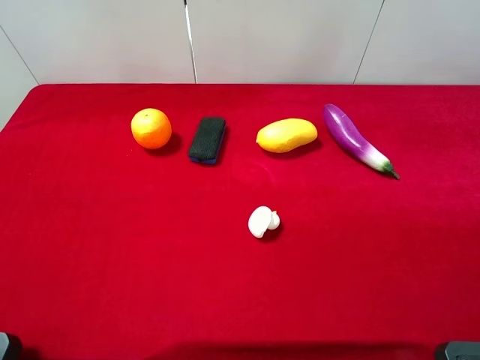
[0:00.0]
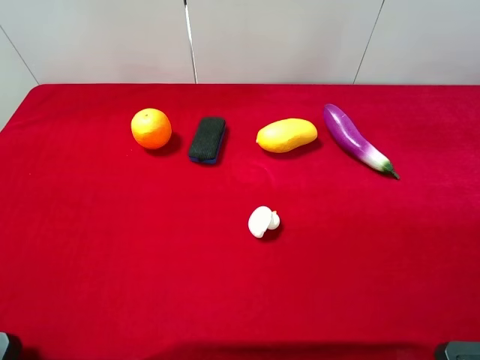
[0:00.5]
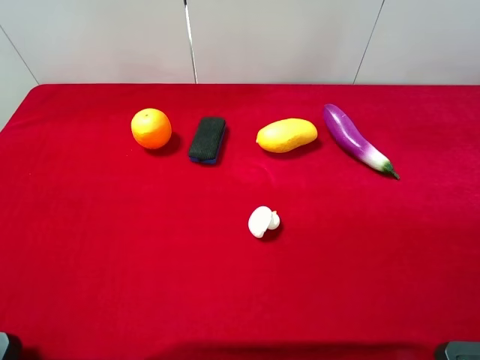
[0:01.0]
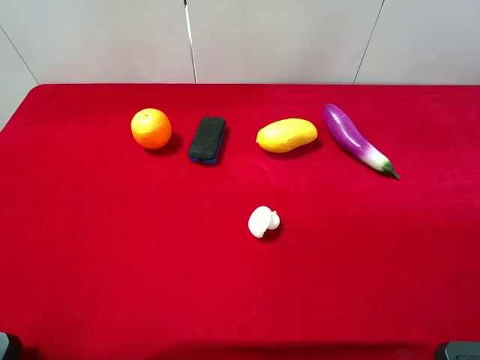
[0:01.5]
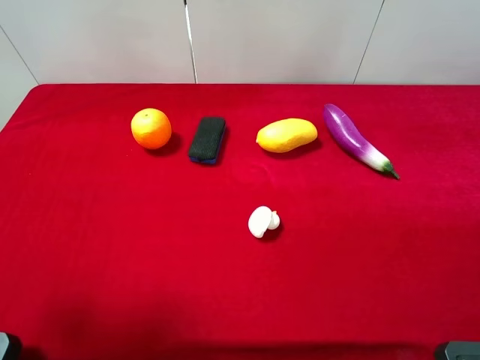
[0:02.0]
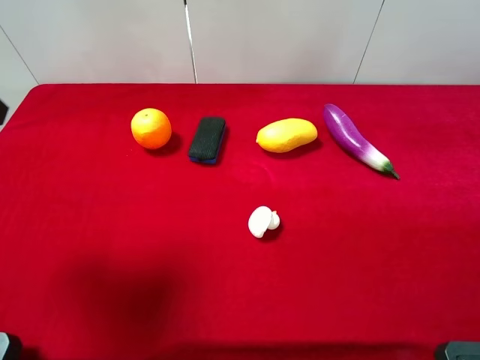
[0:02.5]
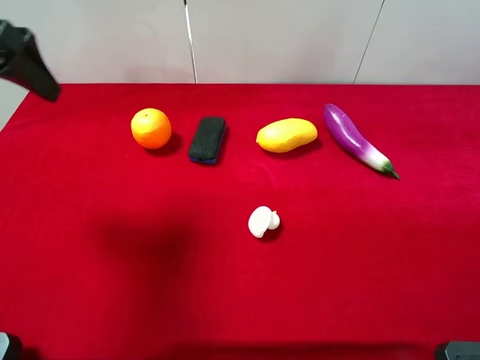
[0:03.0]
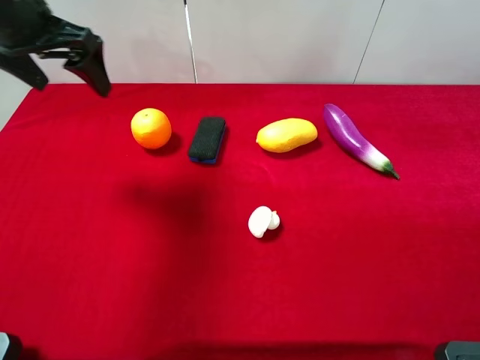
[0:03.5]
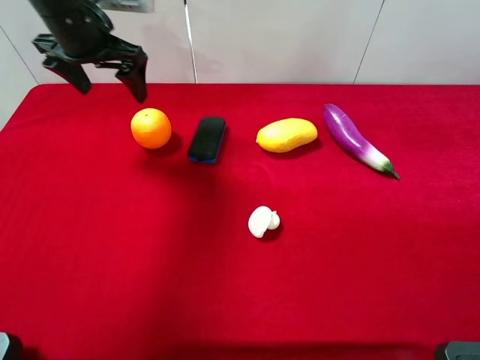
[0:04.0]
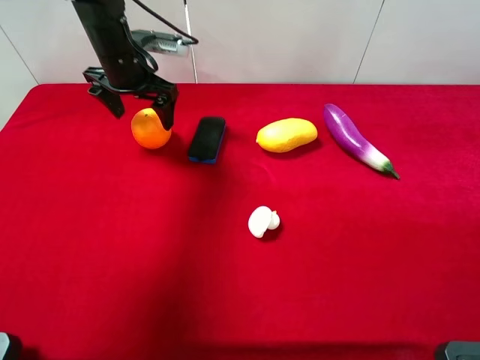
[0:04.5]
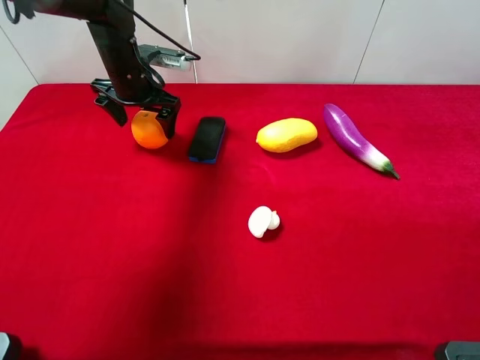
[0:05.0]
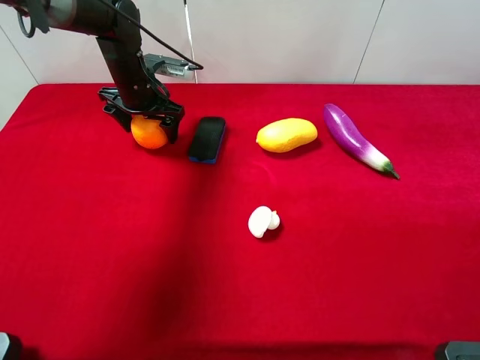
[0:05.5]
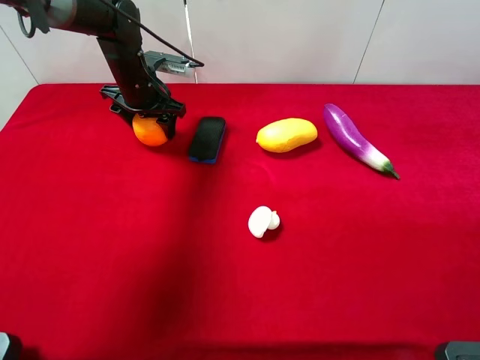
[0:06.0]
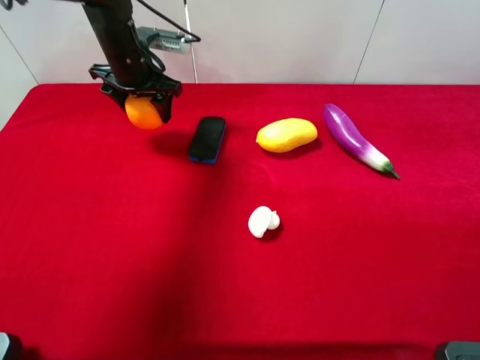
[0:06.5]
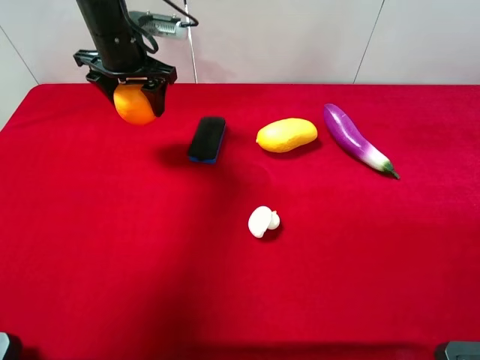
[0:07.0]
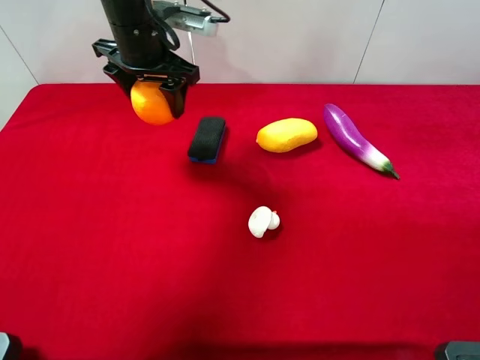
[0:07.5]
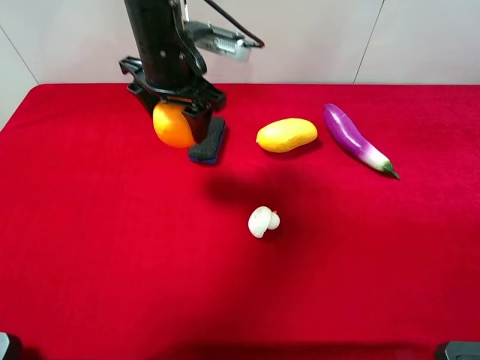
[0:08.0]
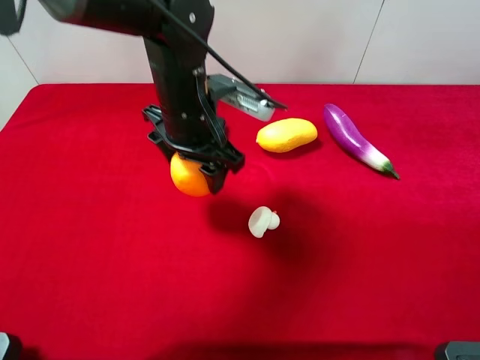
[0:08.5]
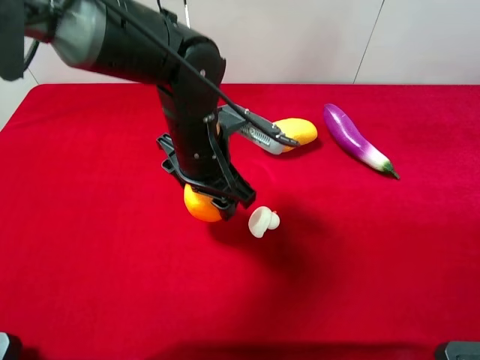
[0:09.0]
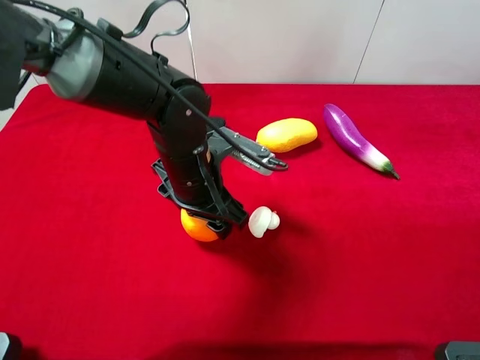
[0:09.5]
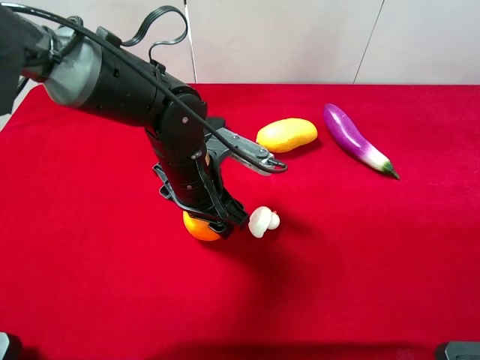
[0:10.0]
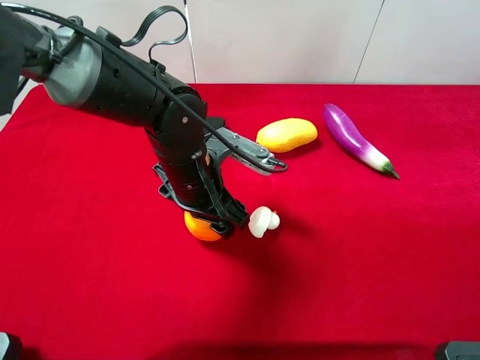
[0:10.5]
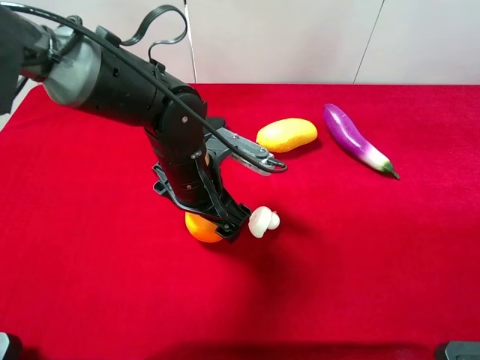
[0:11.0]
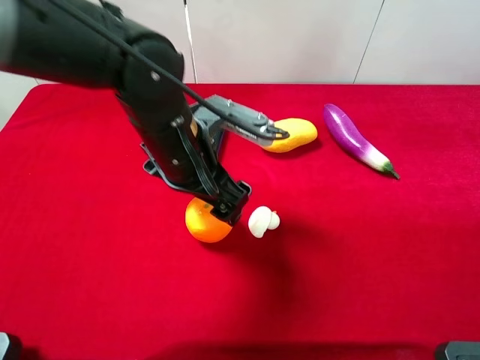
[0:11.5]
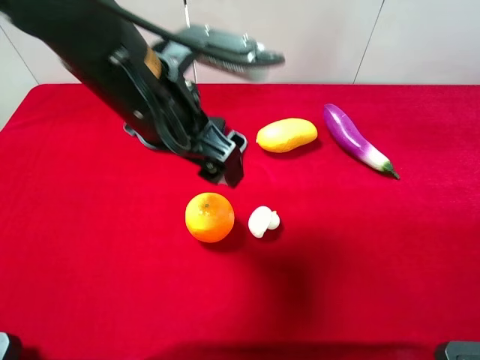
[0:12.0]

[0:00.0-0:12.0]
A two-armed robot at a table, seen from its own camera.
Task of the whole recording: the gripper move the object.
Step, 0:00.0 to 0:05.5: Grasp the orange with the left gripper.
Step, 0:06.0 to 0:11.5: Place the orange on the table with the left gripper.
0:00.0 to 0:02.0: The left gripper moves forward and upward, about 10 cm.
0:02.0 to 0:04.0: The left gripper travels forward by approximately 30 cm.
0:04.0 to 0:06.0: The left gripper shifts about 10 cm downward, and closes its fingers.
0:06.0 to 0:08.0: The left gripper moves backward, upward and to the right, approximately 15 cm.
0:08.0 to 0:10.0: The left gripper travels downward and backward by approximately 15 cm.
0:10.0 to 0:12.0: The left gripper is displaced upward by approximately 15 cm, and opens its fingers.

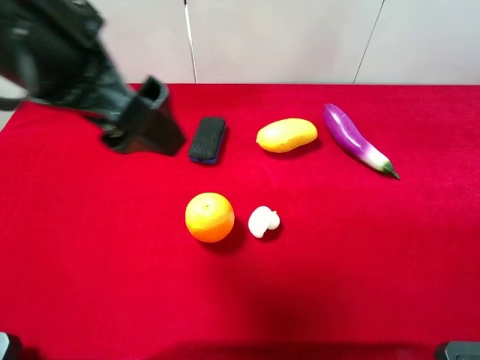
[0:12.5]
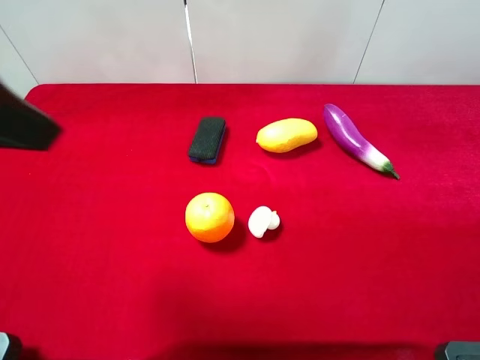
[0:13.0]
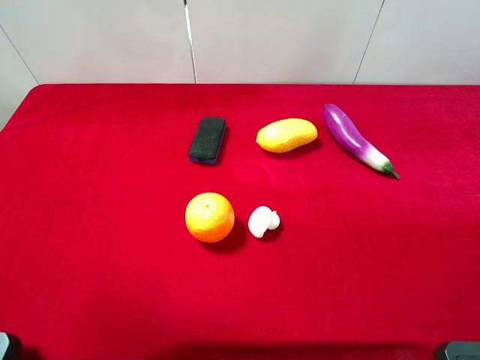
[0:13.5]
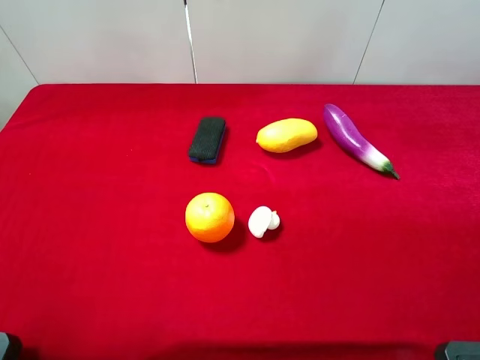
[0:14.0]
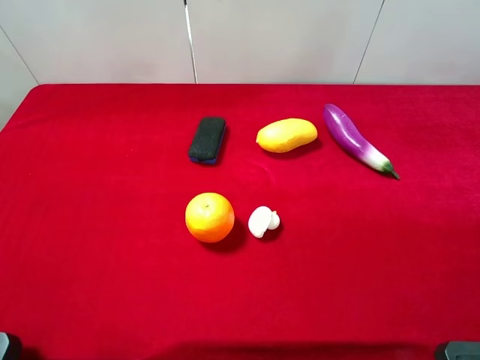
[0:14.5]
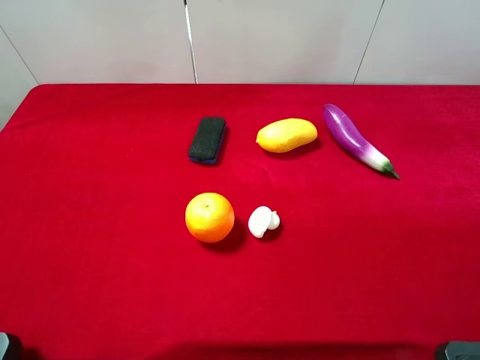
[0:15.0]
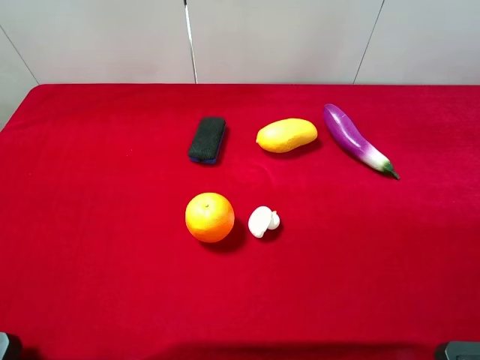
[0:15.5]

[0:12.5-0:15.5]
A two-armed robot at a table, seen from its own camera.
Task of the whole recording: the gripper move the object.
0:12.5 to 0:14.0: The left gripper shifts roughly 20 cm to the left and backward.

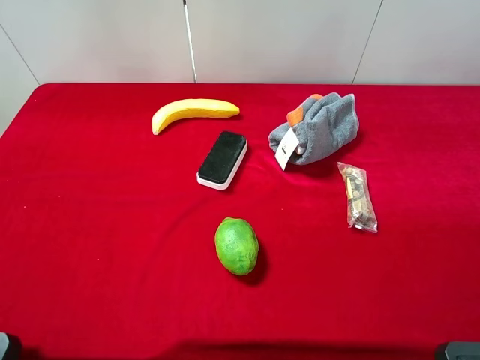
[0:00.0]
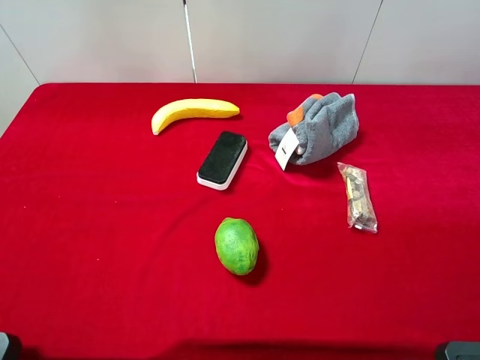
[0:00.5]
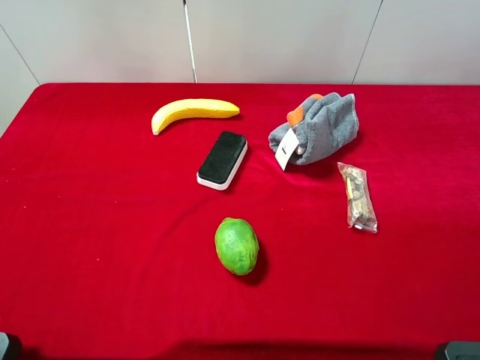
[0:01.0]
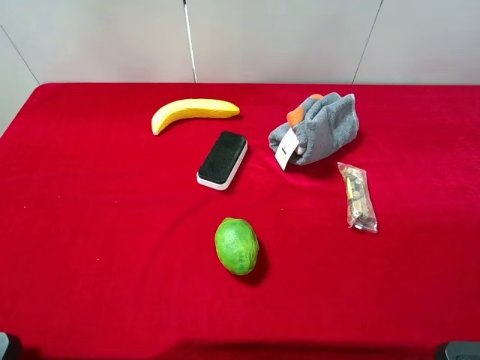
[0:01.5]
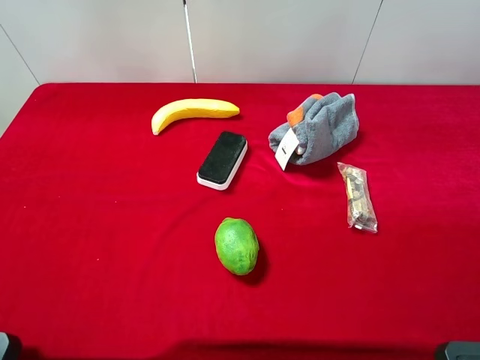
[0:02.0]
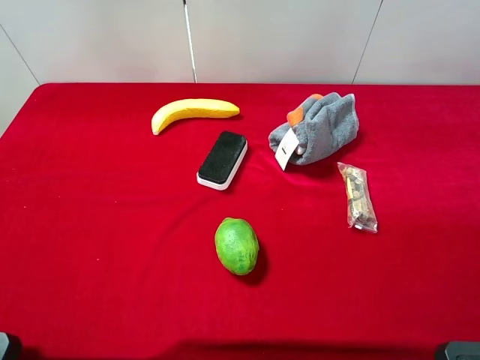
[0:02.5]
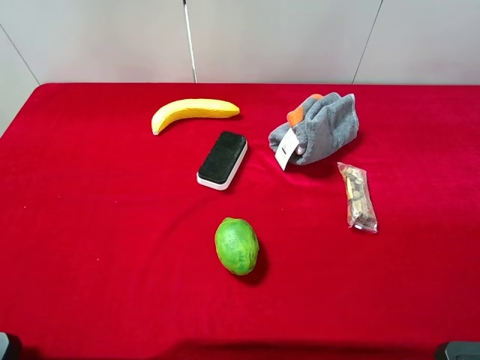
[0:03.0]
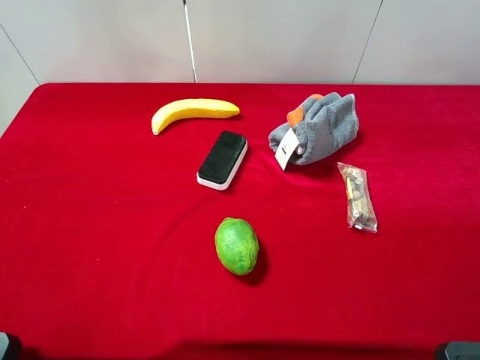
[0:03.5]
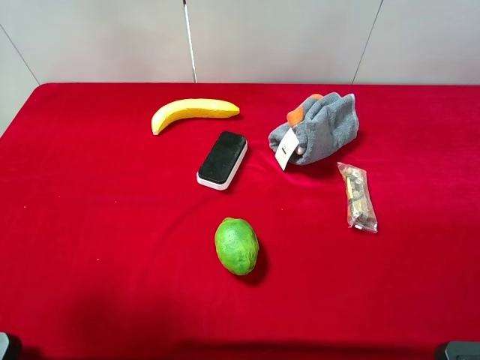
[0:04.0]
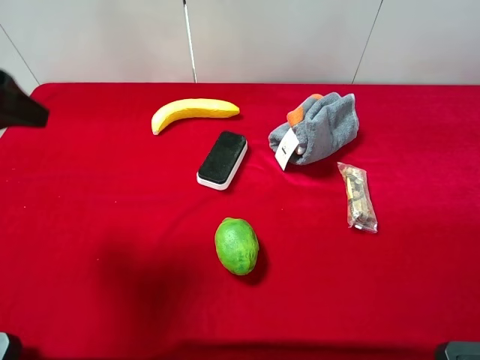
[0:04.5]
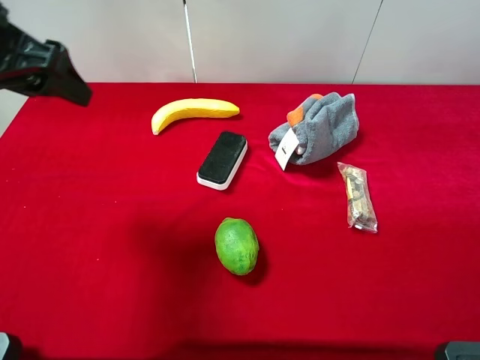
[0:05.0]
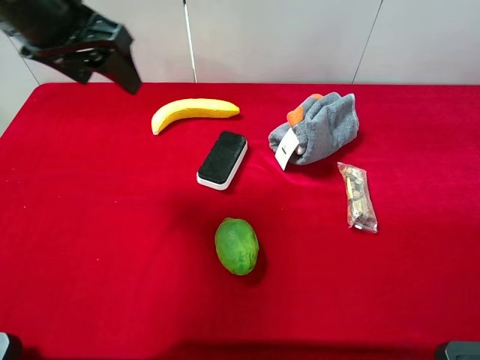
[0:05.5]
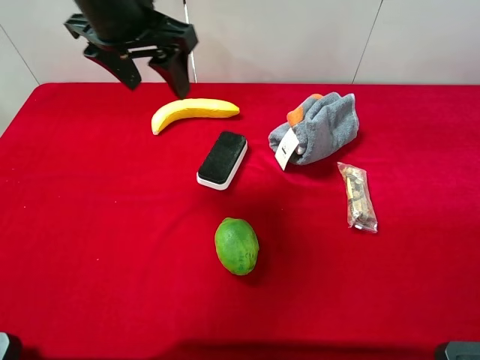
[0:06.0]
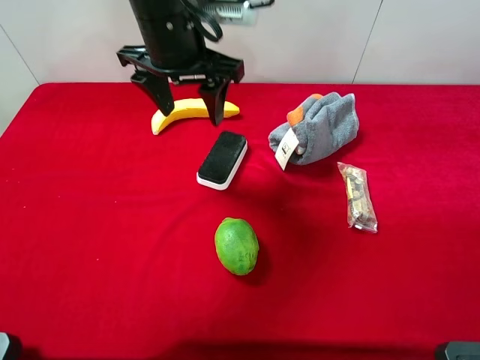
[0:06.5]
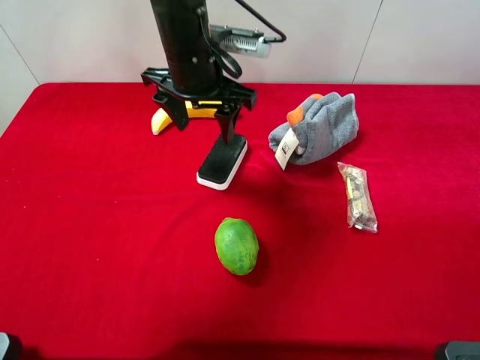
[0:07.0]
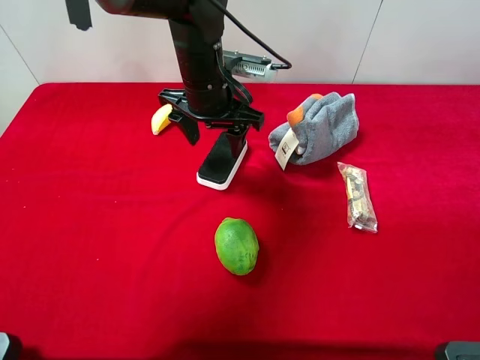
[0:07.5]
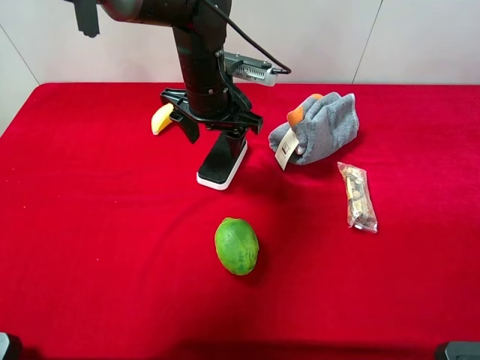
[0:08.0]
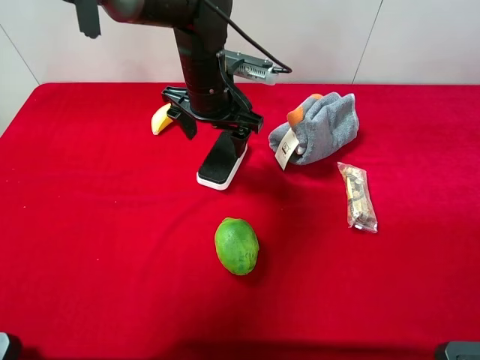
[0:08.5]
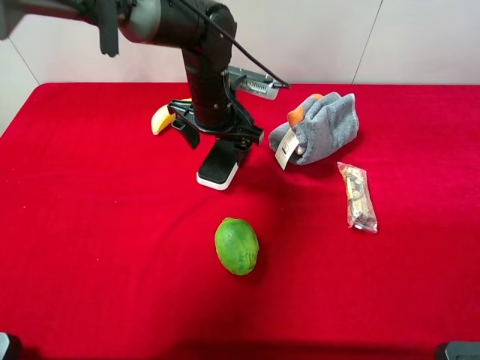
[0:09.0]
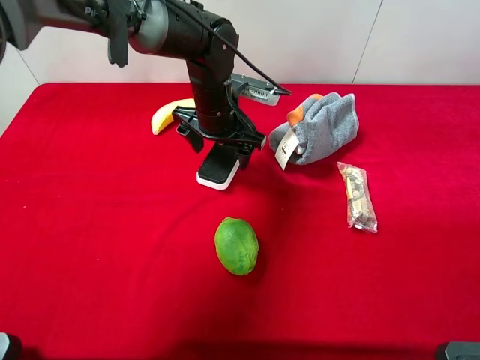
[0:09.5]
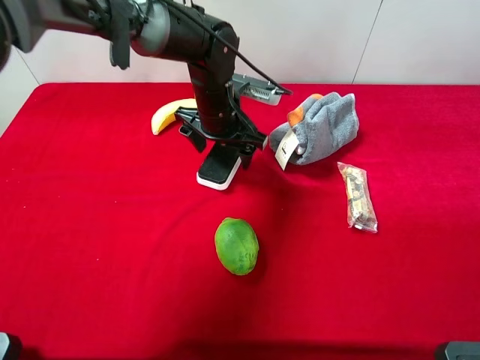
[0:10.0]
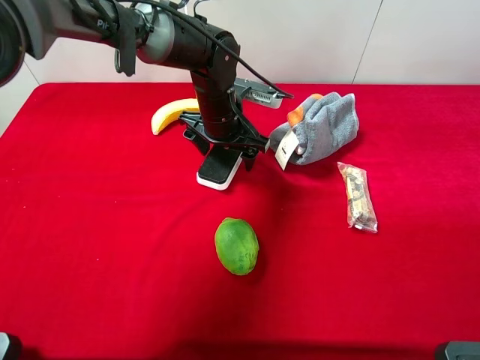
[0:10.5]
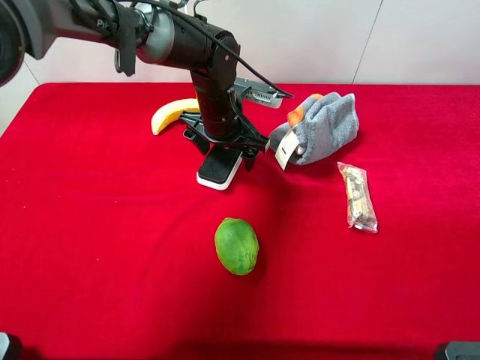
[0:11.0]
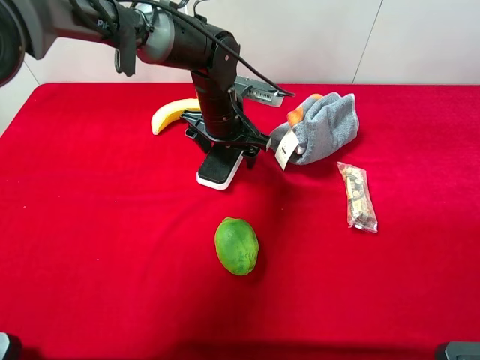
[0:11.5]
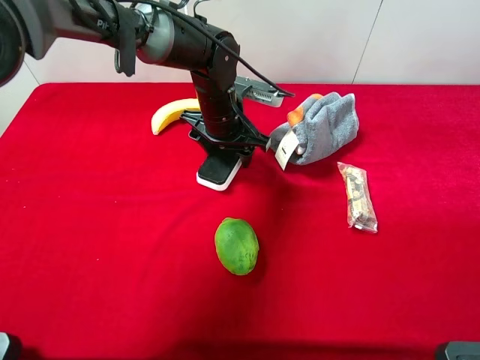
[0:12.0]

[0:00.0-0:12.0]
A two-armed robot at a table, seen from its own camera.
Task of the whole recording: the gripper move the object.
0:00.0 to 0:02.0: Both grippers stay put.
0:02.0 to 0:04.0: The left gripper heads forward, covering some 10 cm.
0:04.0 to 0:06.0: The left gripper is displaced forward and to the right by approximately 25 cm.
0:06.0 to 0:08.0: The left gripper travels downward and to the right by some 15 cm.
0:08.0 to 0:10.0: The left gripper heads downward, covering about 5 cm.
0:10.0 to 0:12.0: The left gripper closes up.
